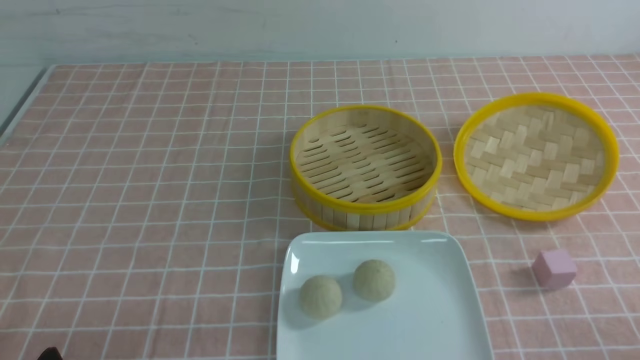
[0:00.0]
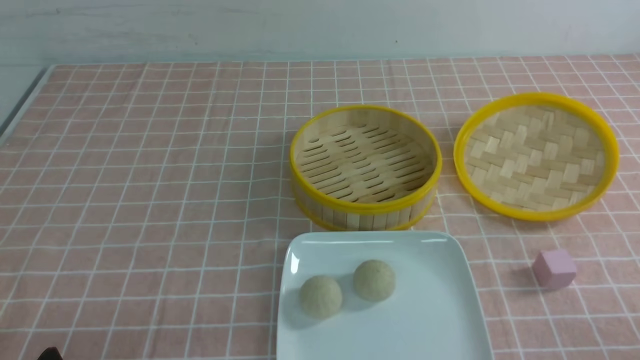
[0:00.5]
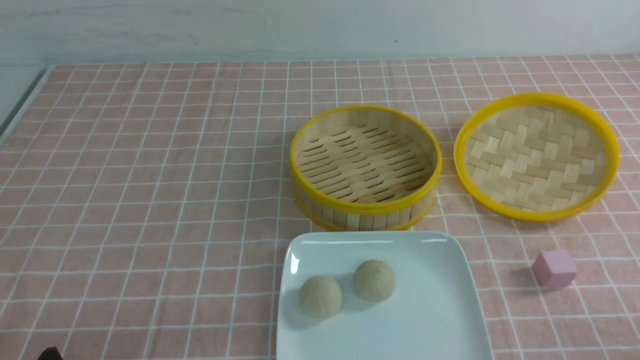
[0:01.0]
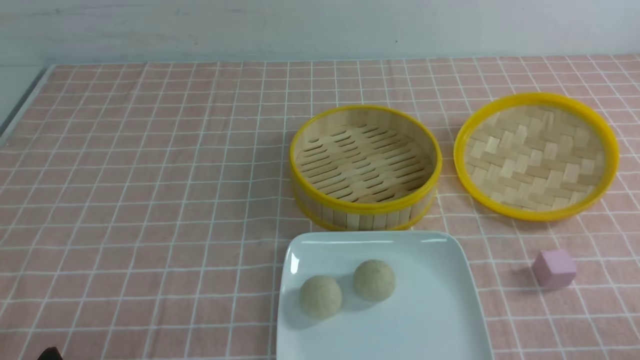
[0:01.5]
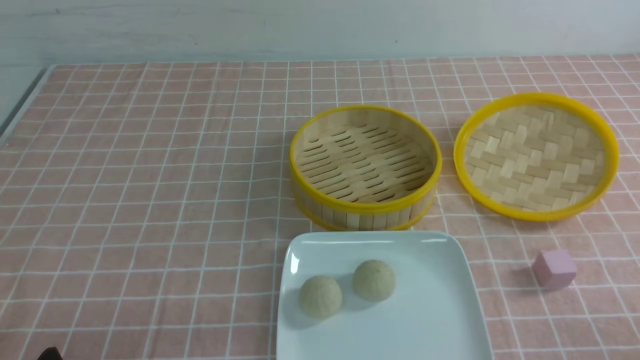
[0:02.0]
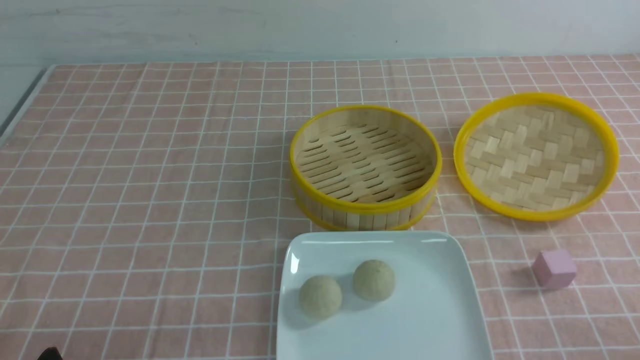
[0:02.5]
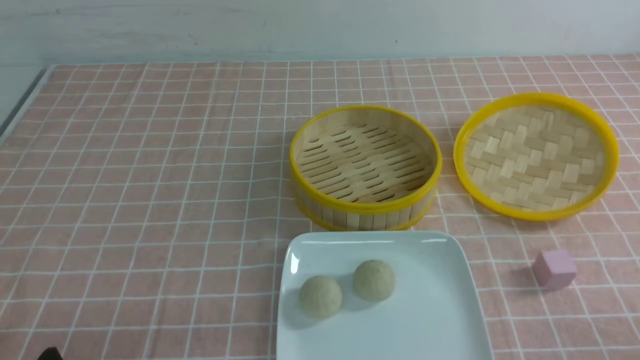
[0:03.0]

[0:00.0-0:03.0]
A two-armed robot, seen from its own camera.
0:00.0 to 0:03.0: Neither gripper changes place.

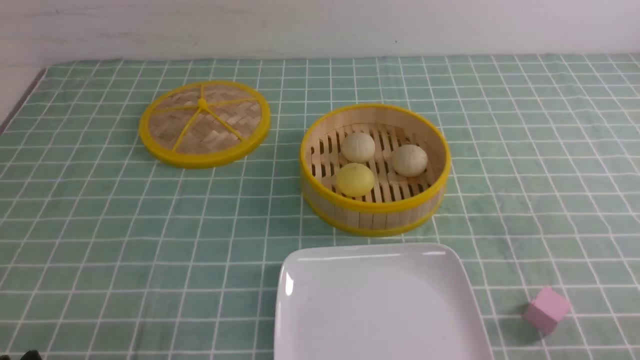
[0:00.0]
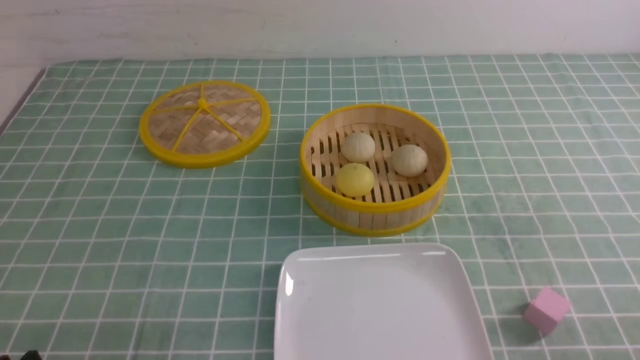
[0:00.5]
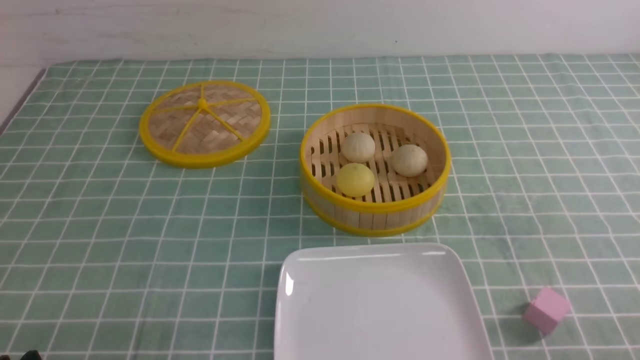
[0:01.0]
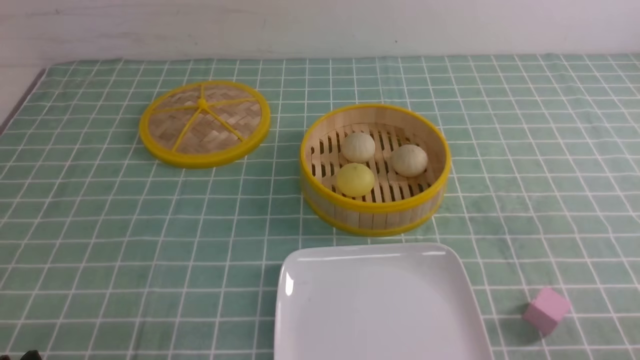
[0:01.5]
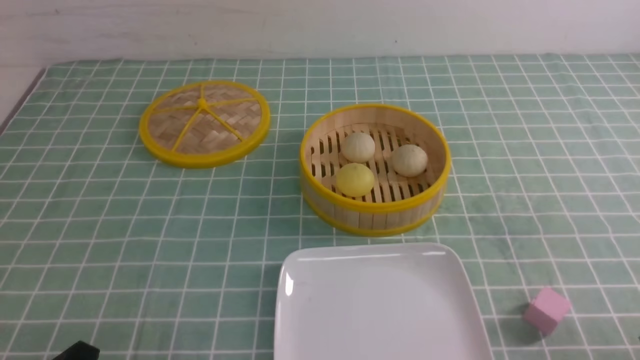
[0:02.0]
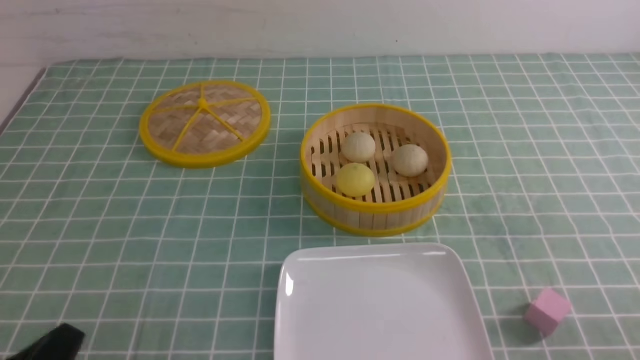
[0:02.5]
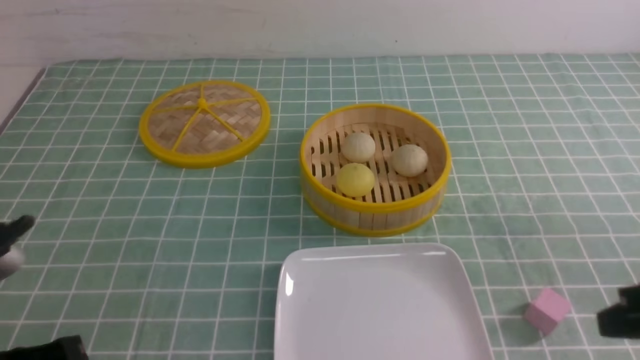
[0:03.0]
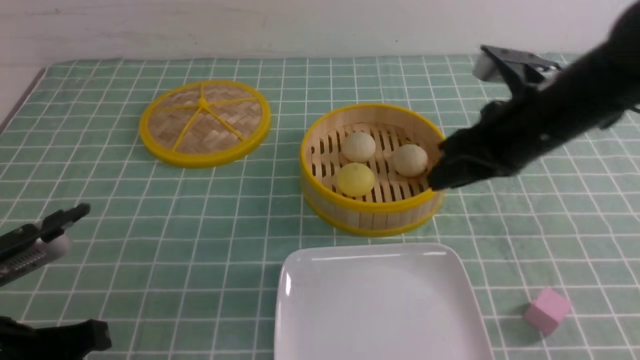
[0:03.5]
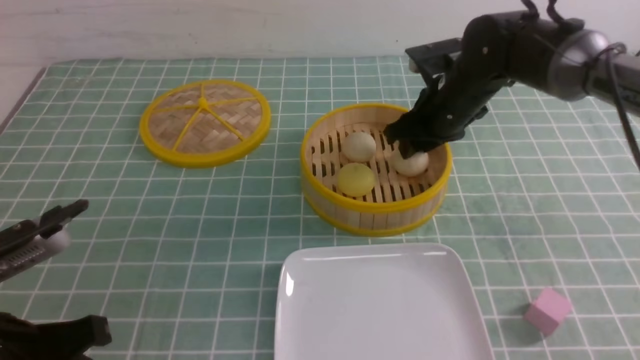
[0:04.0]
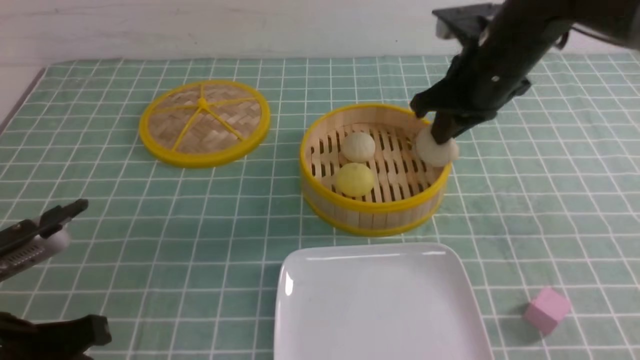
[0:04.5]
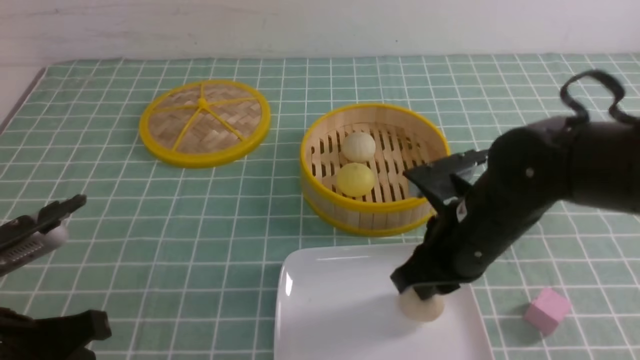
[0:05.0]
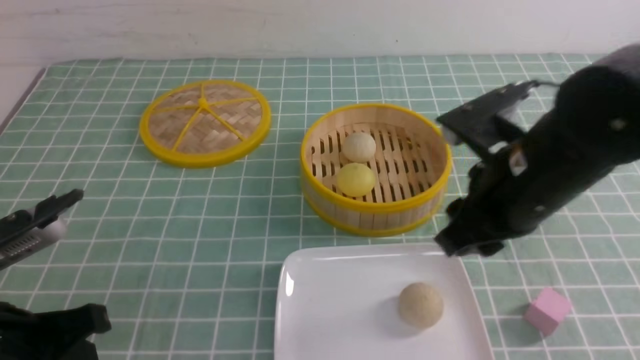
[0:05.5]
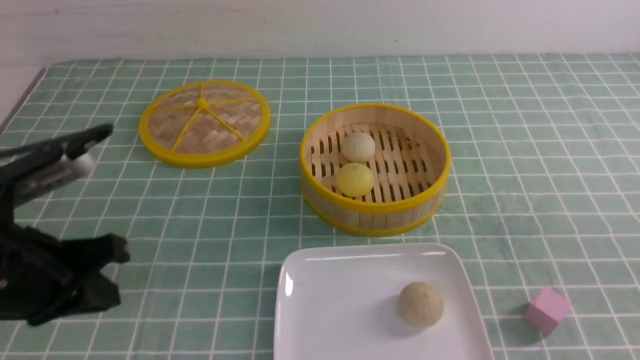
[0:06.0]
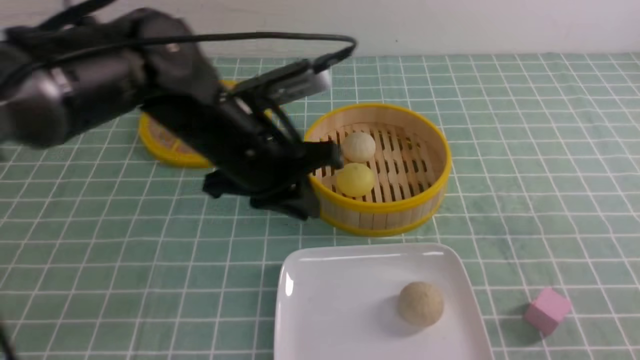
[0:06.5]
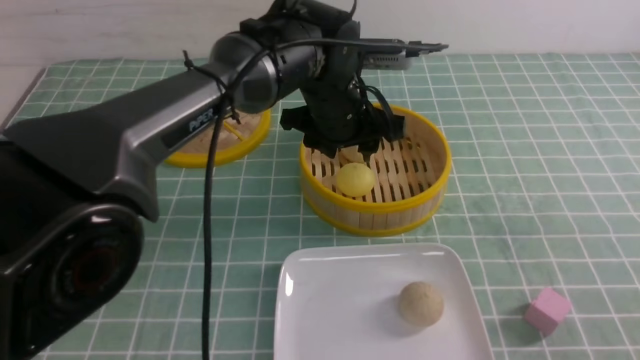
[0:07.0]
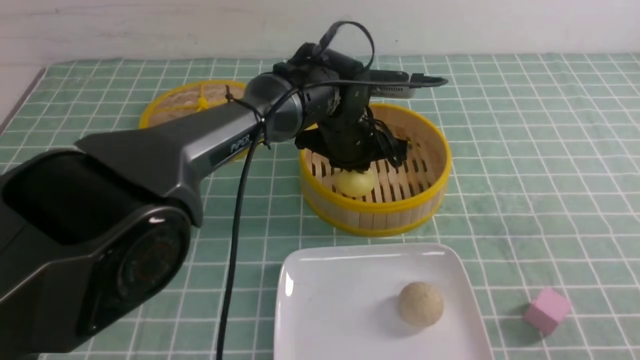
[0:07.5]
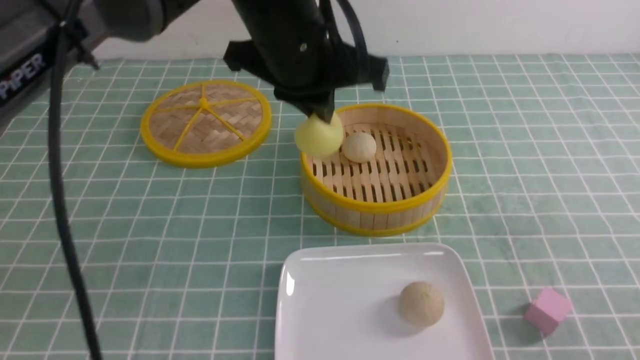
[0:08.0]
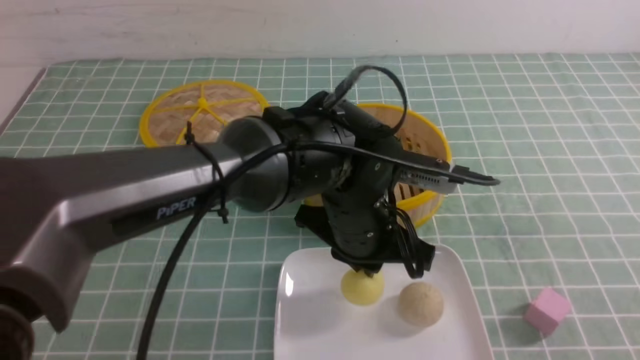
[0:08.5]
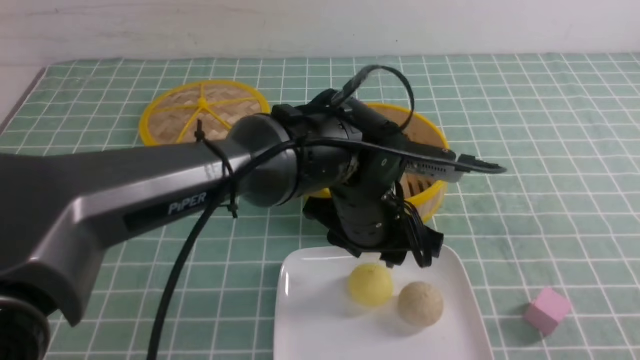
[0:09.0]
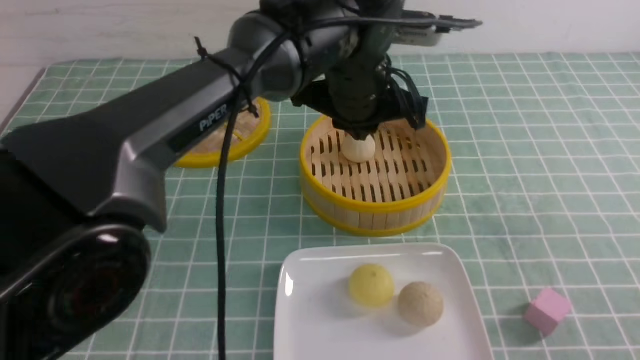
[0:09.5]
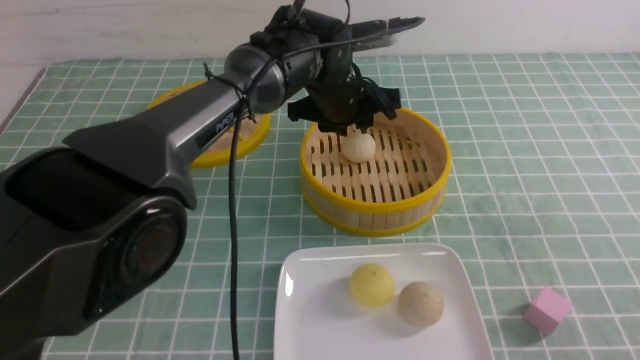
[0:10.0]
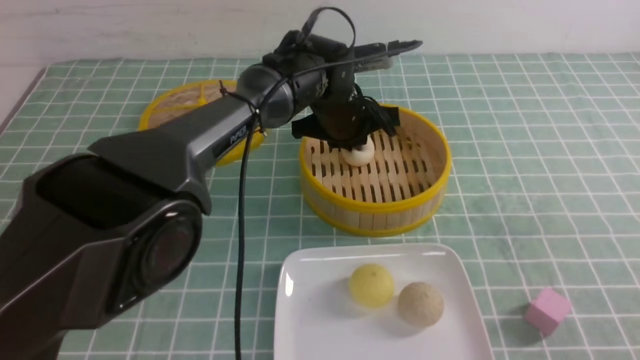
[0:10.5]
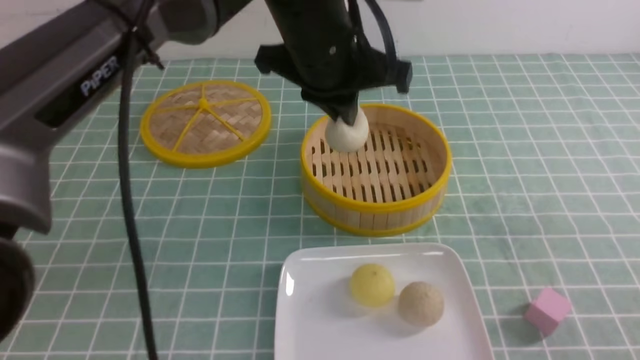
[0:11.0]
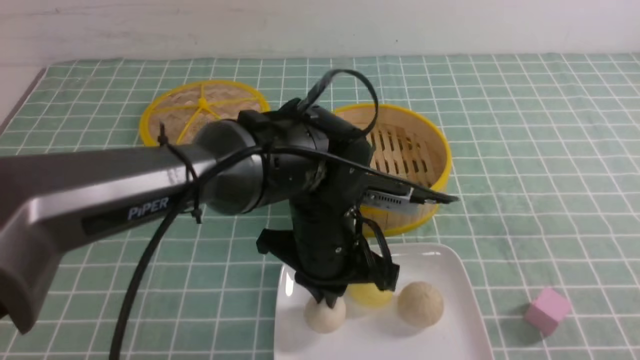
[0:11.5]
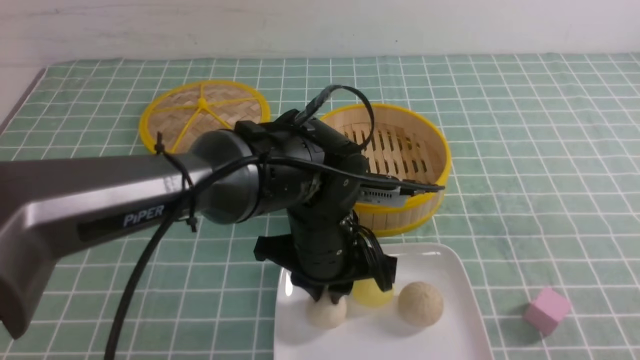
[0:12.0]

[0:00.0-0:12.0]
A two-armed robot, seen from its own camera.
Step, 0:00.0 to 0:04.0: use the right arm to grab the steamed stuffed bun that is closest to it.
Step, 0:04.5 to 0:05.0: use the right arm to put the steamed stuffed bun into the plate.
Step, 0:05.5 to 0:07.5: use the left arm to grab the steamed stuffed bun that is closest to it.
Step, 0:08.0 to 0:08.5: use the left arm to put the steamed stuffed bun into the plate.
Step, 0:09.0 to 0:10.5: use the left arm to grab the steamed stuffed bun that is closest to it.
Step, 0:11.0 to 0:12.0: use the left arm to put the steamed stuffed bun into the plate.
0:02.0 to 0:04.0: The left gripper travels forward and upward by some 10 cm, and closes, while the right gripper shifts roughly 40 cm forward and to the left, and closes and opens again.
0:04.0 to 0:06.0: The left gripper goes approximately 5 cm forward. The right gripper travels backward by some 35 cm, and closes.
0:06.0 to 0:08.0: The left gripper travels to the right and forward by some 25 cm, and opens, then closes again. The right gripper goes roughly 5 cm downward.
0:08.0 to 0:10.0: The left gripper travels forward and downward by about 15 cm, and opens.
0:10.0 to 0:12.0: The left gripper travels backward by some 20 cm, and closes, then reopens.

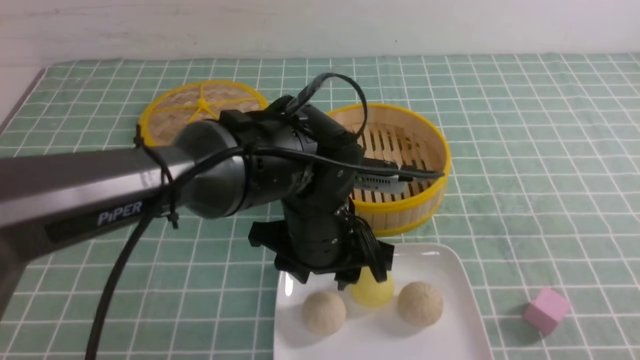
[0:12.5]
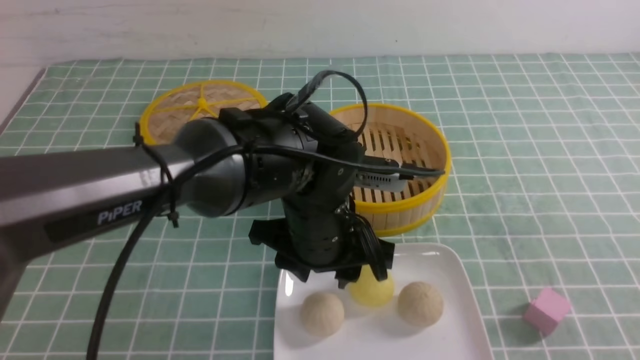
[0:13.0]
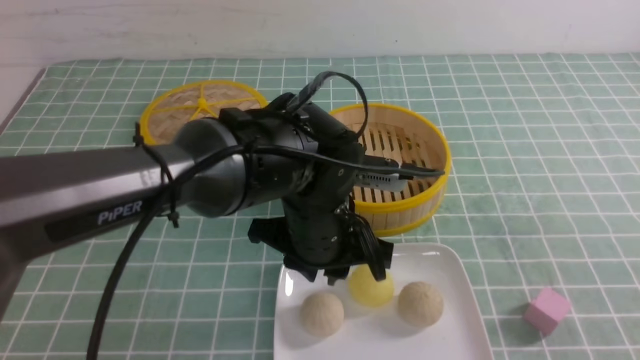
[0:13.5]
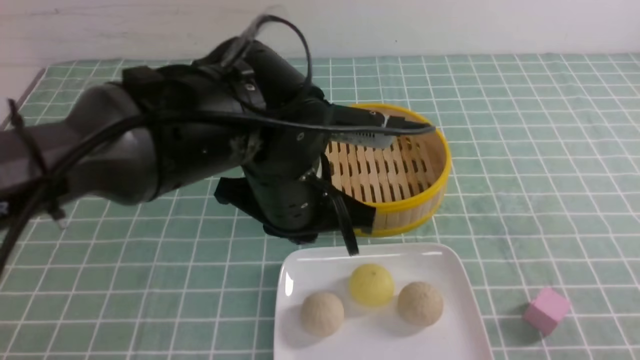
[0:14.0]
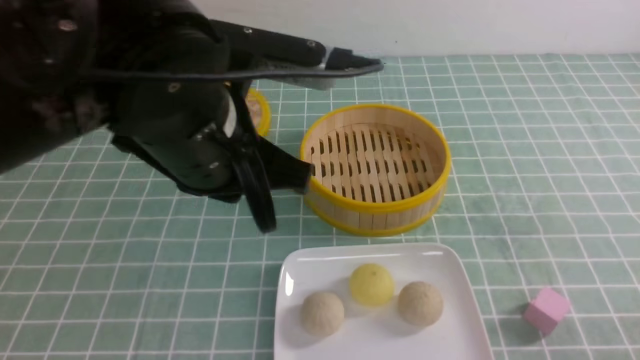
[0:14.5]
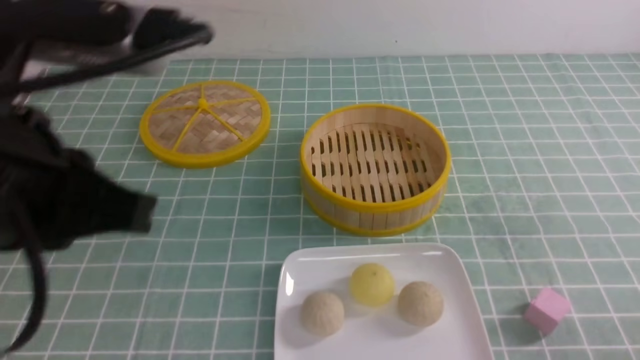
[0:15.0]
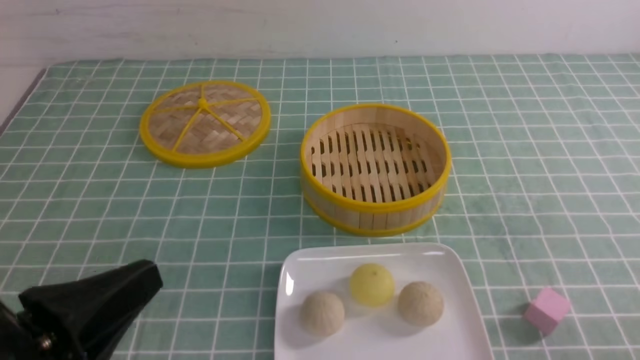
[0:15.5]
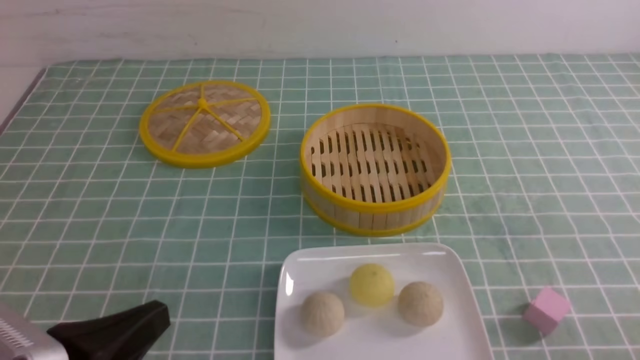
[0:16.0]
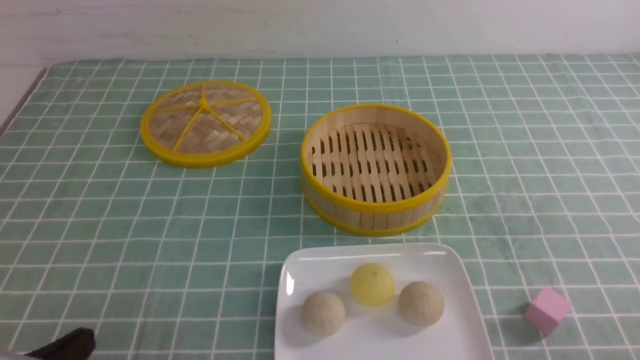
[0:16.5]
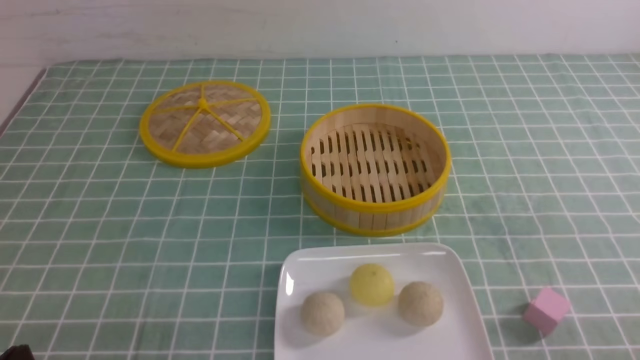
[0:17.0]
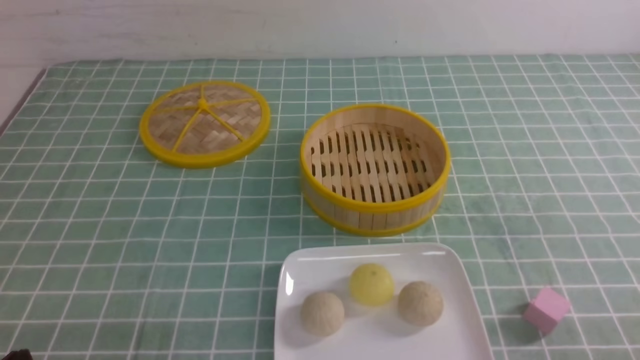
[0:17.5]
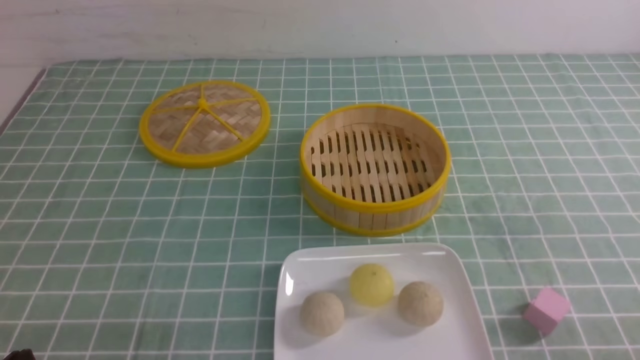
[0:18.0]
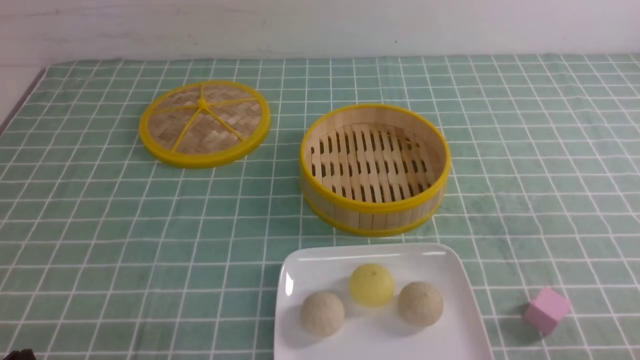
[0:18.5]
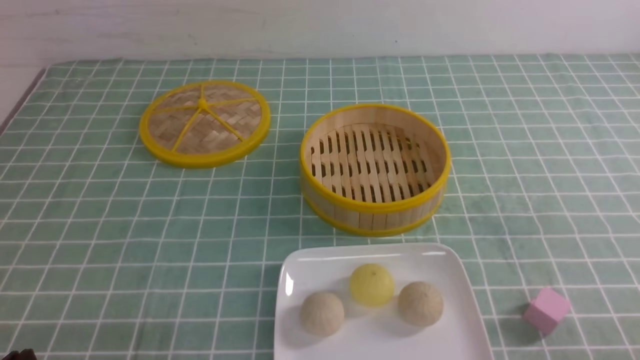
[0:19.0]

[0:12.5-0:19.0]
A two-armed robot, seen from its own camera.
0:12.5 to 0:14.5: The right gripper is displaced downward by about 10 cm; the left gripper travels upward and to the left by approximately 15 cm, and closes its fingers.
0:14.5 to 0:17.0: The left gripper heads downward, to the left and backward, covering about 30 cm.
0:17.0 to 0:19.0: Both grippers stay about where they are.
